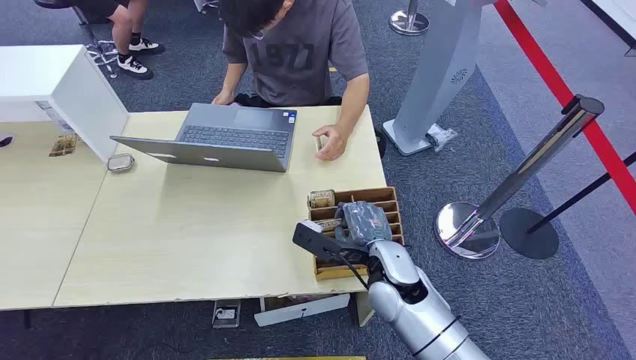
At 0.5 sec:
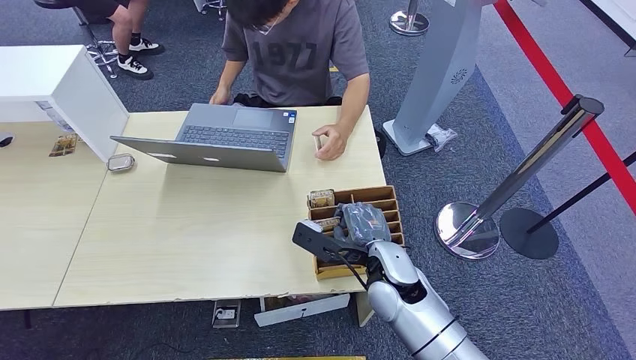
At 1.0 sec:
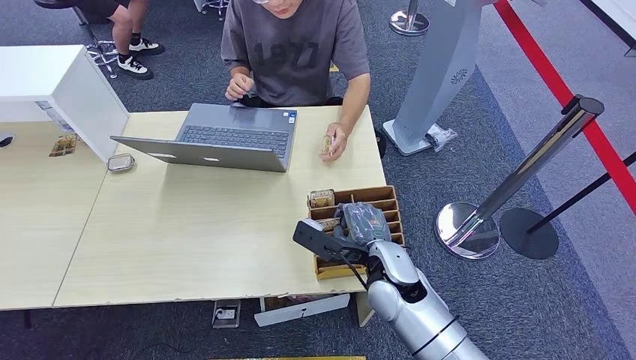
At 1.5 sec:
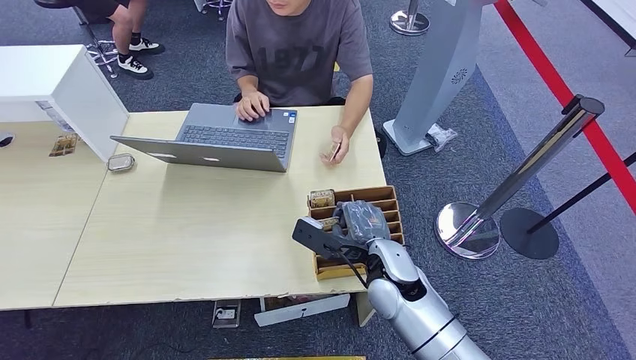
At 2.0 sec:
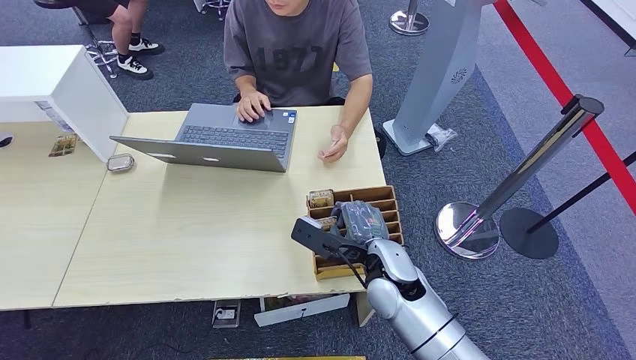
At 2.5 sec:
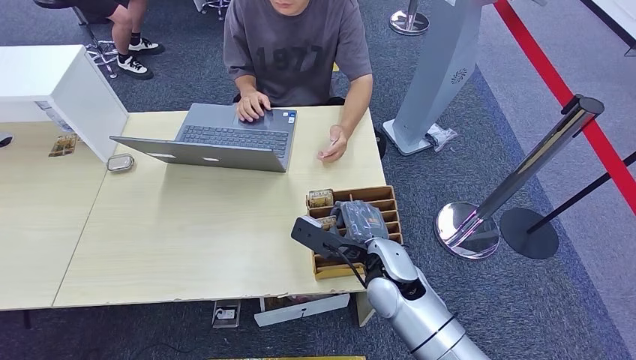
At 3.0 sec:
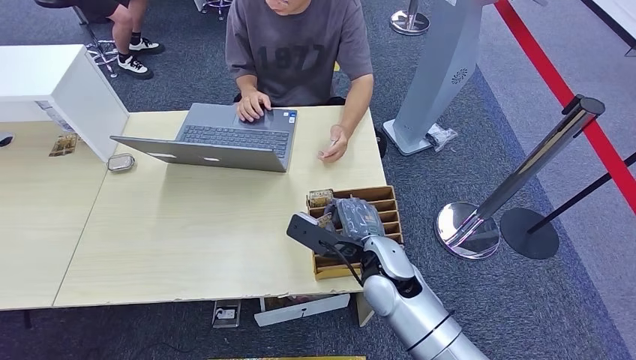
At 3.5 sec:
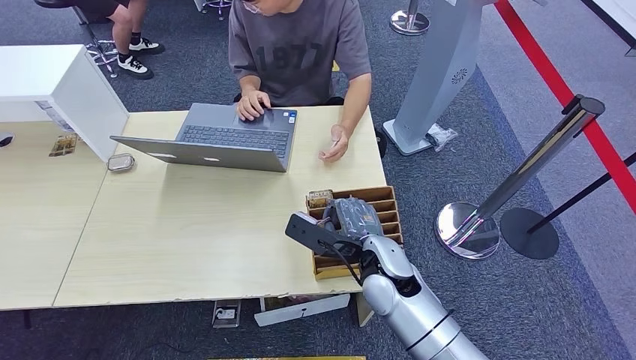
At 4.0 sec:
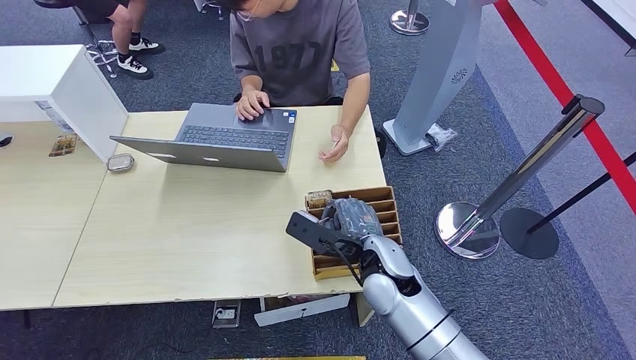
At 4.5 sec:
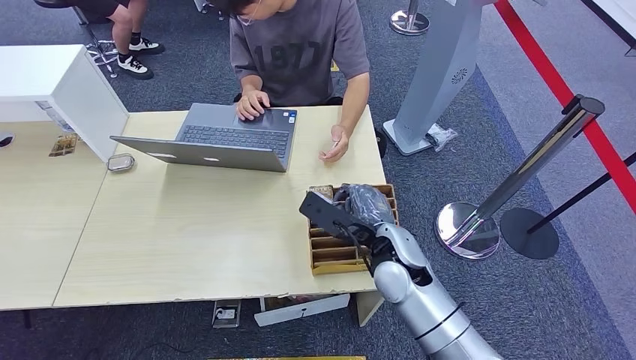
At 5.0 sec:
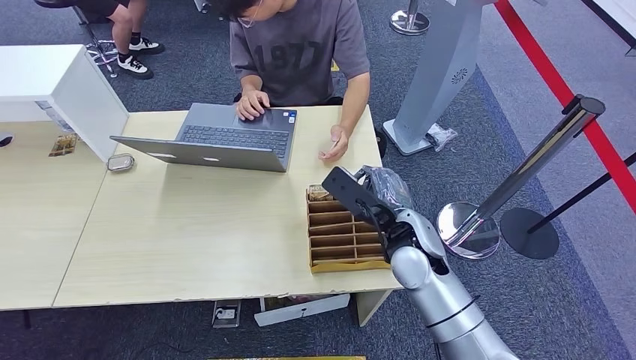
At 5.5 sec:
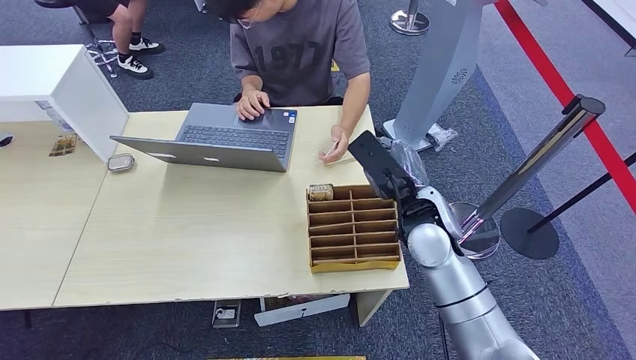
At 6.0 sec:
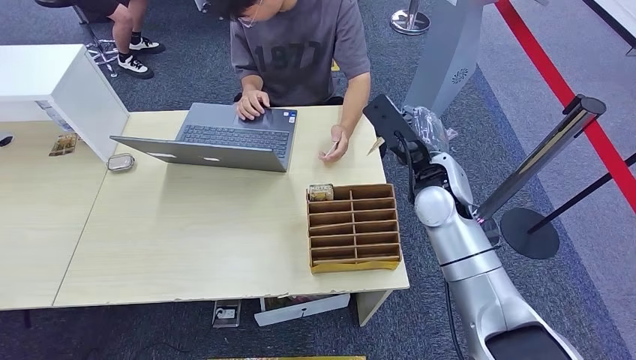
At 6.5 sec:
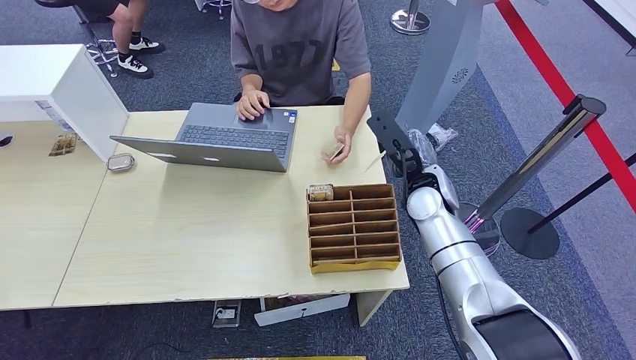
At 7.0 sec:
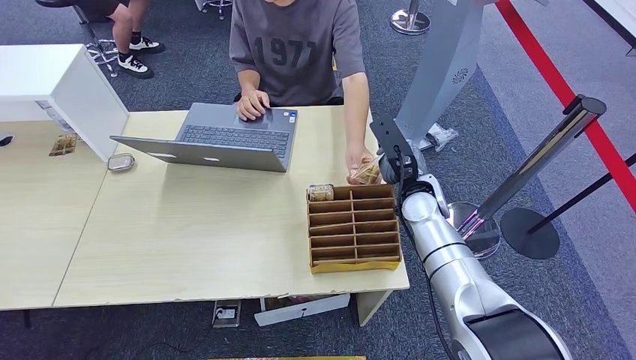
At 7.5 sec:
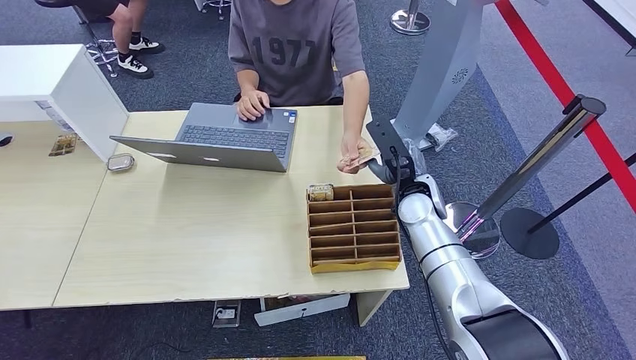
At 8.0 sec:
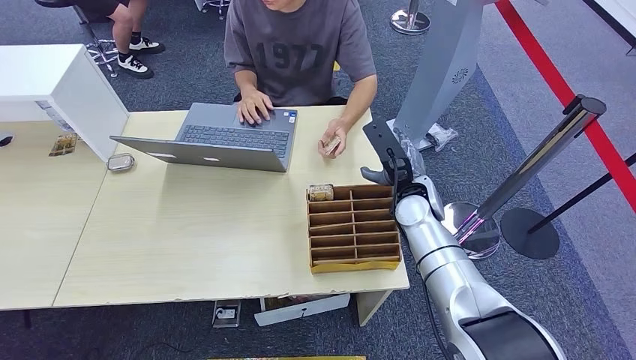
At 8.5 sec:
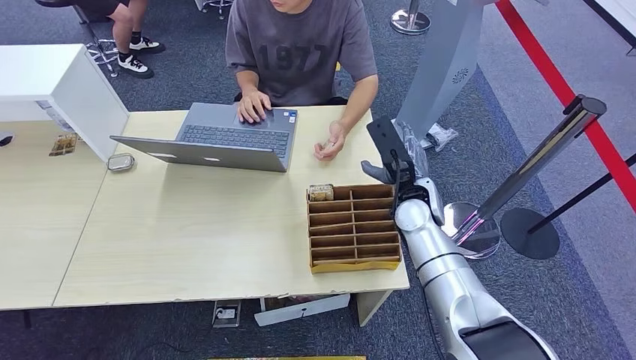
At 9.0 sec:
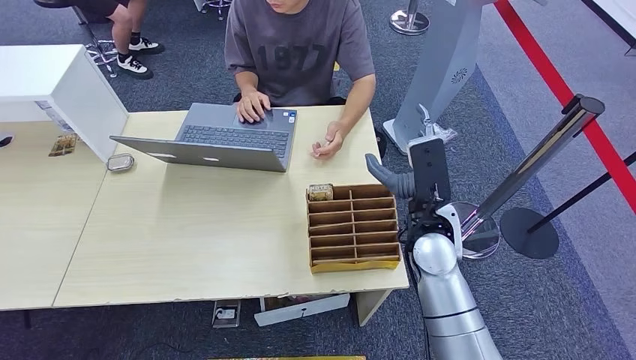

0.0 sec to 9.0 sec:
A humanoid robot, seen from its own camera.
Step, 0.0 sec to 6.0 sec: Pick up the key card from the card box.
Step, 7.0 sec to 9.0 sec: Hand the key card to the target.
2.0 sec to 4.5 sec: The hands make only small movements.
4.5 sec to 7.0 sec: The right hand goes about 10 cm forward and to the right.
7.0 sec to 9.0 sec: The right hand shifts approximately 10 cm backward.
